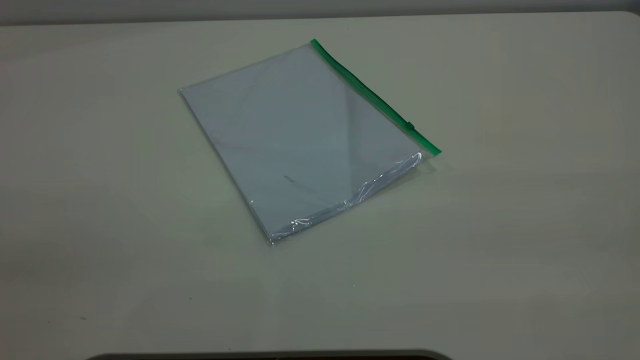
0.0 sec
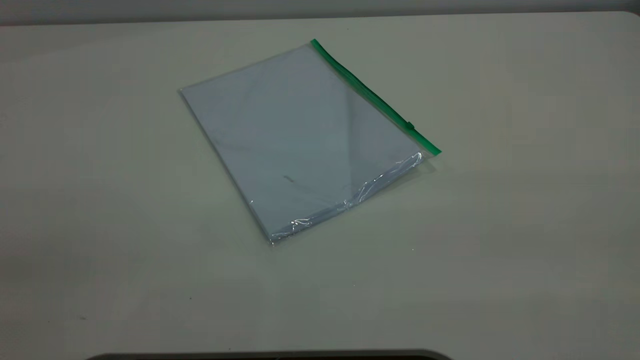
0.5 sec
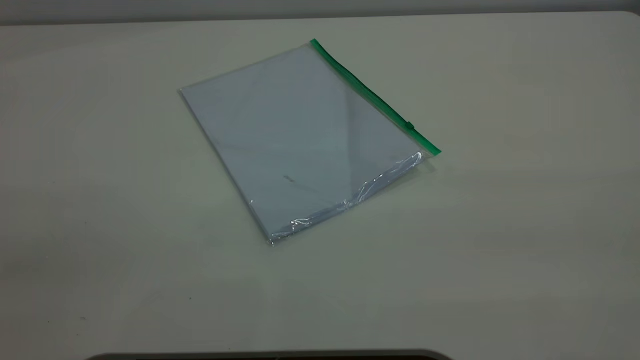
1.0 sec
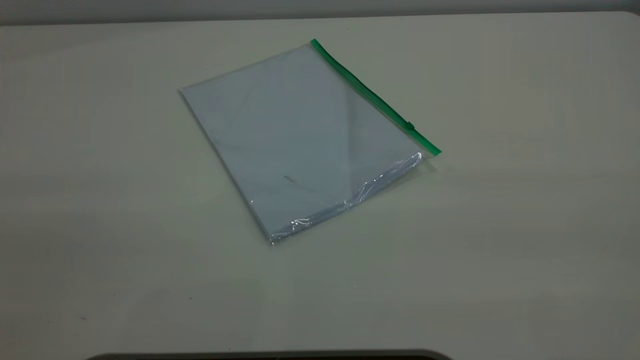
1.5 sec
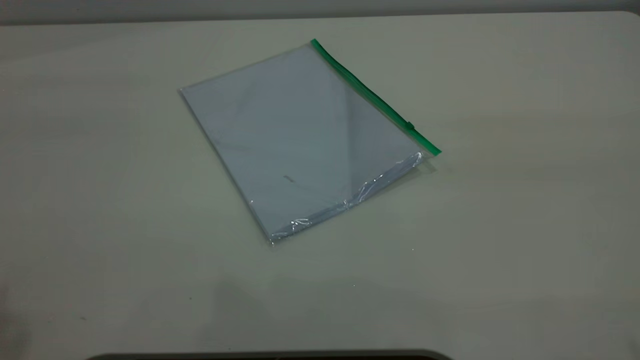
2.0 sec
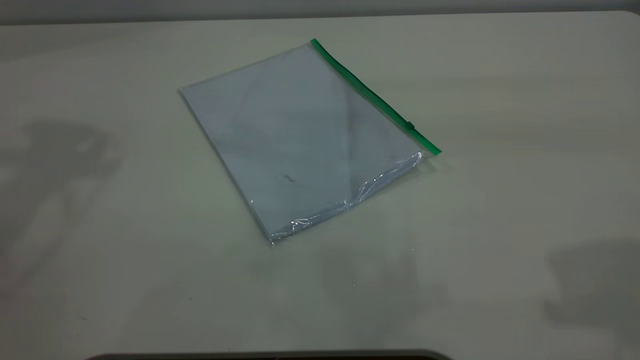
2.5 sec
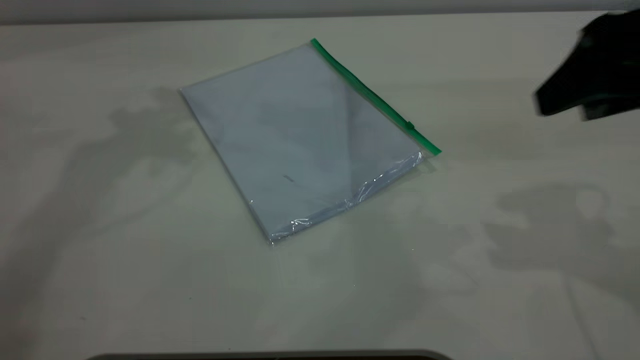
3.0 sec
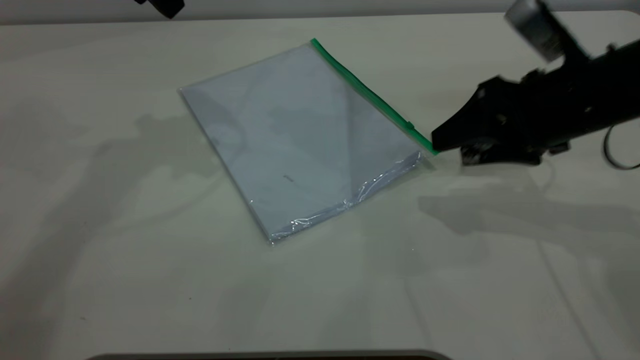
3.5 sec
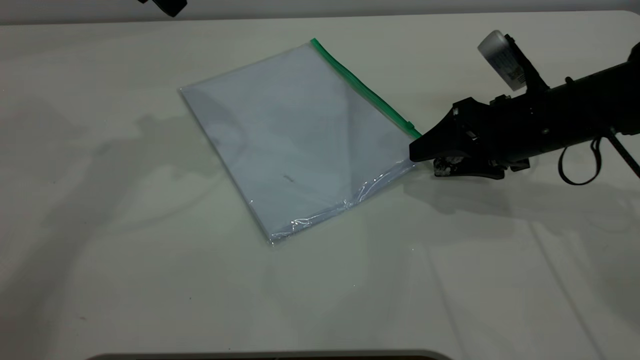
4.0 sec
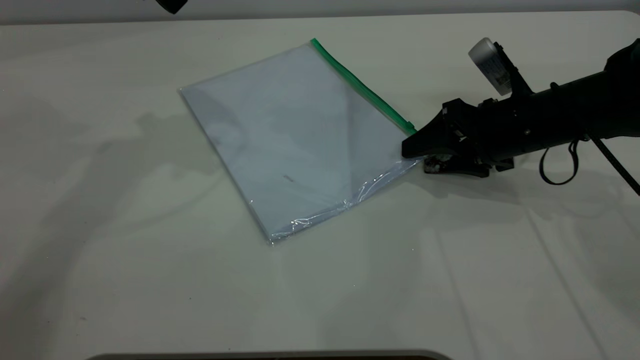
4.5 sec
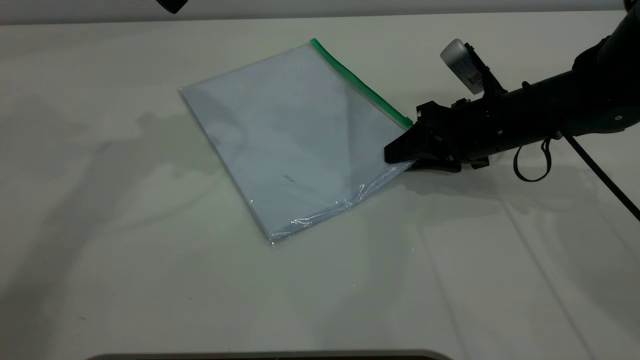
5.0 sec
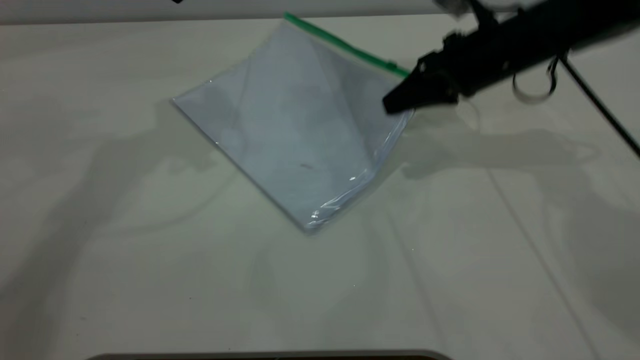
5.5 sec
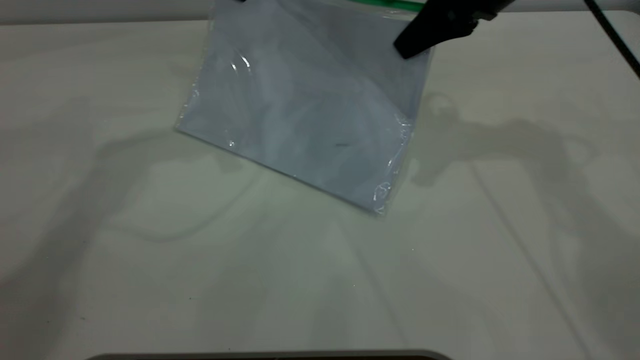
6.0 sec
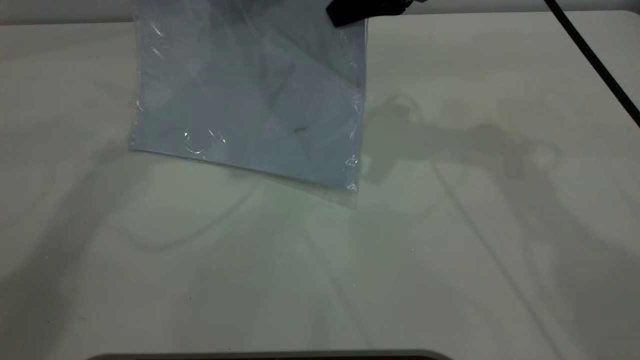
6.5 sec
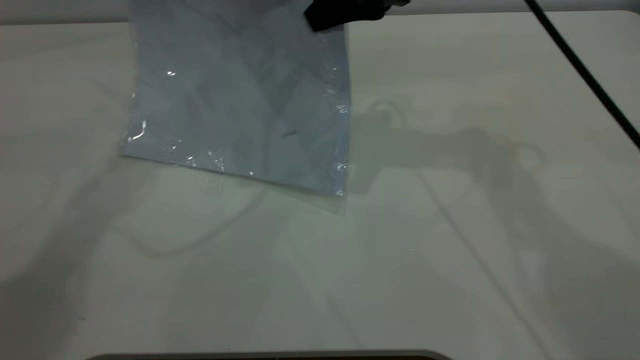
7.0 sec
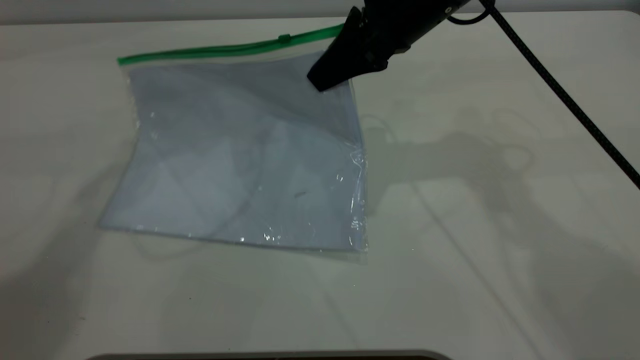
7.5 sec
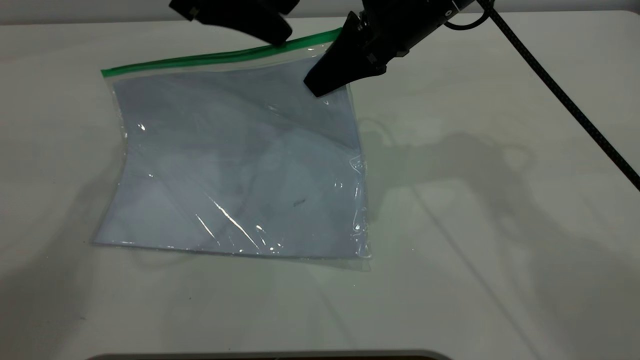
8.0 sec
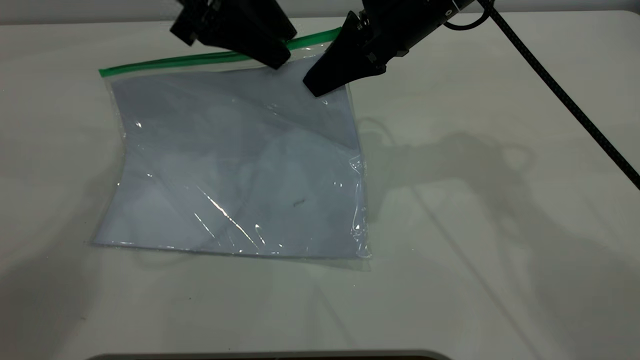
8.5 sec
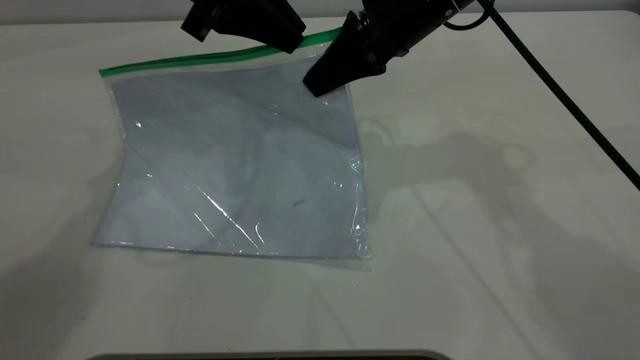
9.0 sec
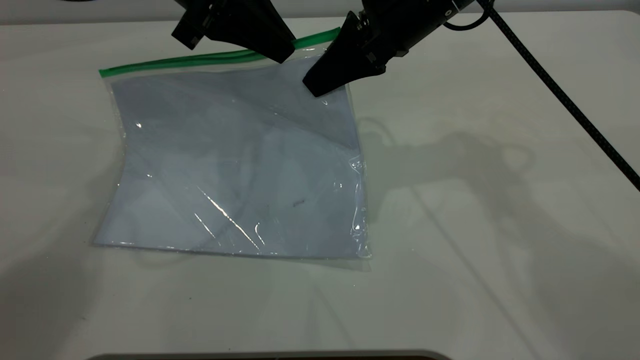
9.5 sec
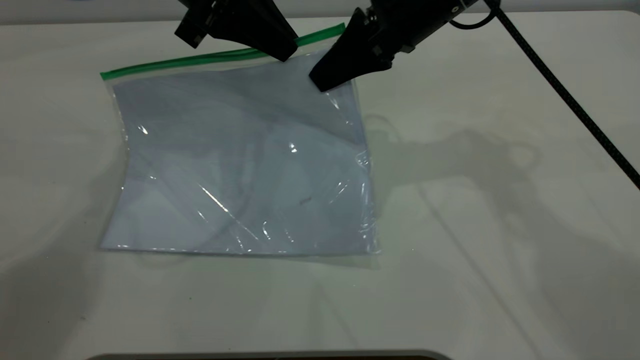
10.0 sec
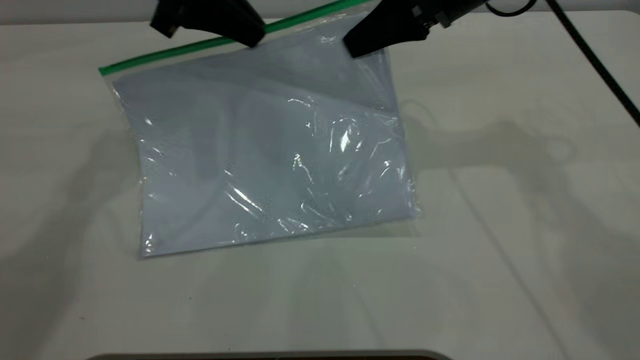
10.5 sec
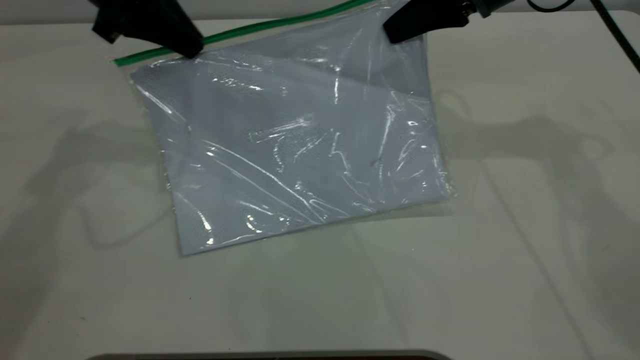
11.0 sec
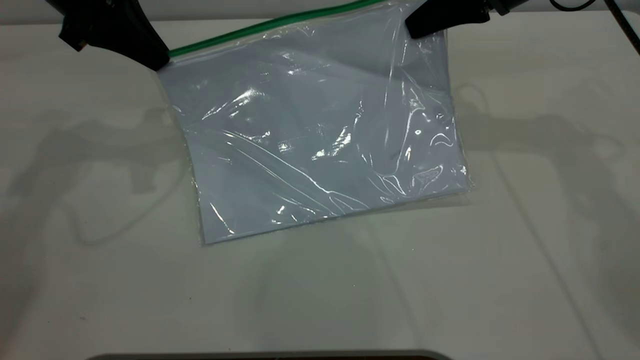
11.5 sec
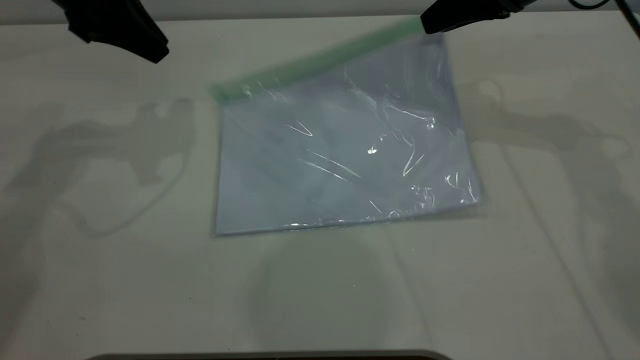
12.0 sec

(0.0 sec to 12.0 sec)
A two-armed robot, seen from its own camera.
Step, 0.0 sec - 7.0 sec: Pick up the transparent plastic bag with the right gripper.
Step, 7.5 sec - 11.5 sec: Pulling up the zipper on the transparent plastic bag with the left gripper to close it.
2.0 sec - 4.0 sec: The right gripper moves downward and forward, approximately 40 cm. The left gripper goes some 30 cm forward, downward and to the right.
4.0 sec - 6.0 sec: The right gripper travels upward and forward by about 15 cm, and closes up.
6.0 sec - 8.0 sec: The right gripper shifts about 5 cm to the left.
8.0 sec - 10.0 sec: The left gripper closes its fingers.
10.0 sec - 12.0 sec: The right gripper goes some 15 cm to the right and forward, and opens up, while the left gripper travels to the left by approximately 10 cm, and opens.

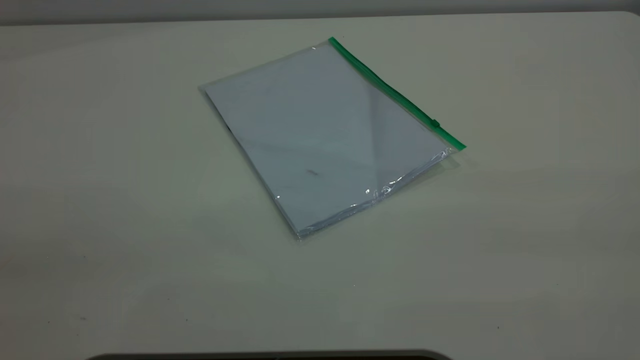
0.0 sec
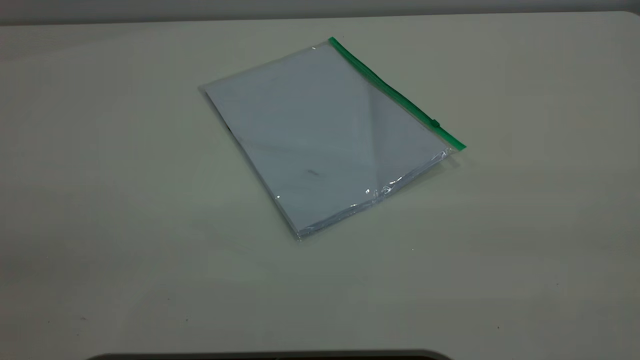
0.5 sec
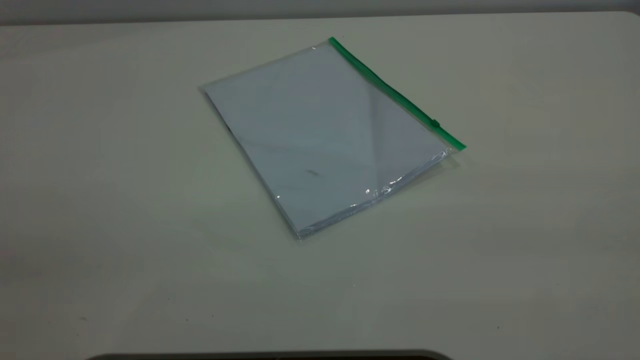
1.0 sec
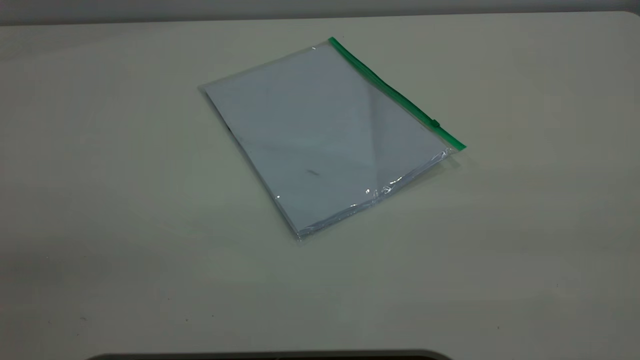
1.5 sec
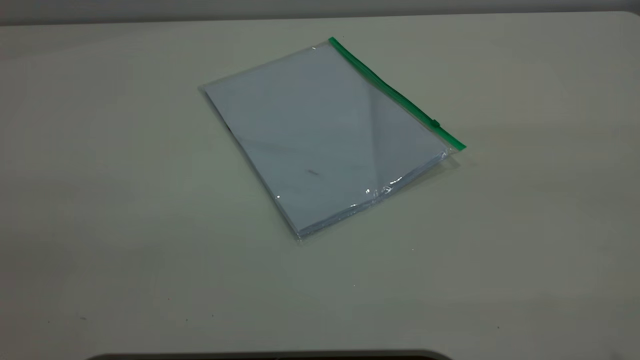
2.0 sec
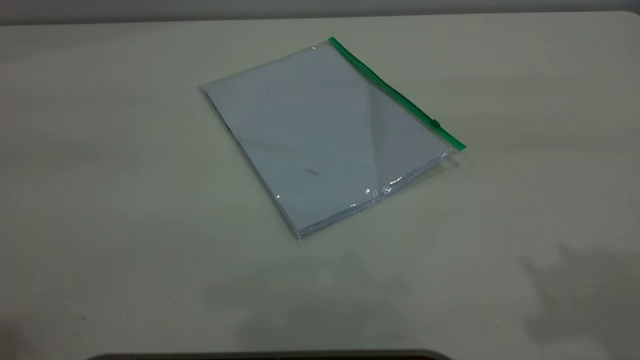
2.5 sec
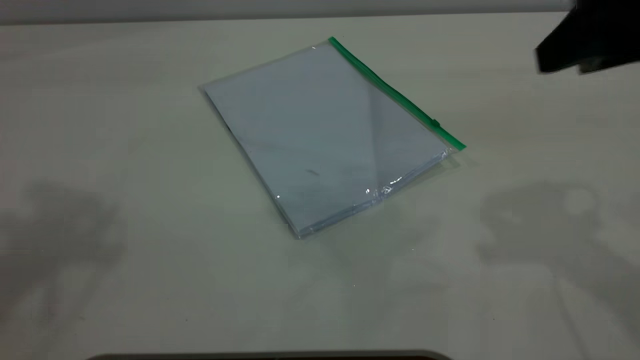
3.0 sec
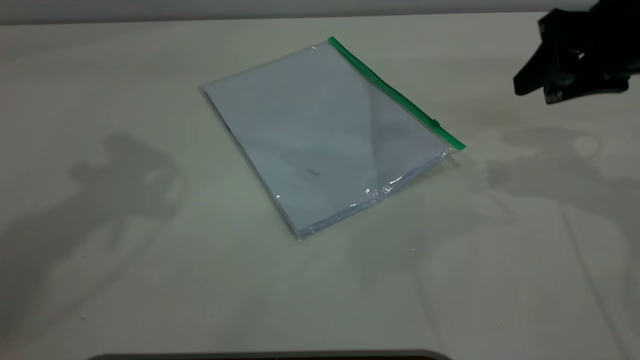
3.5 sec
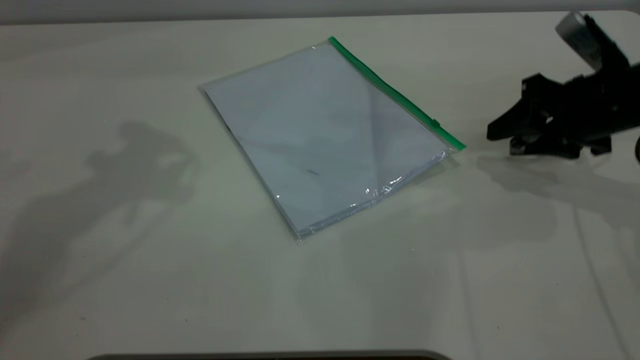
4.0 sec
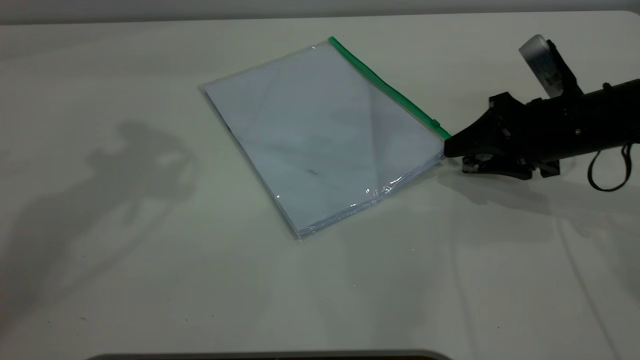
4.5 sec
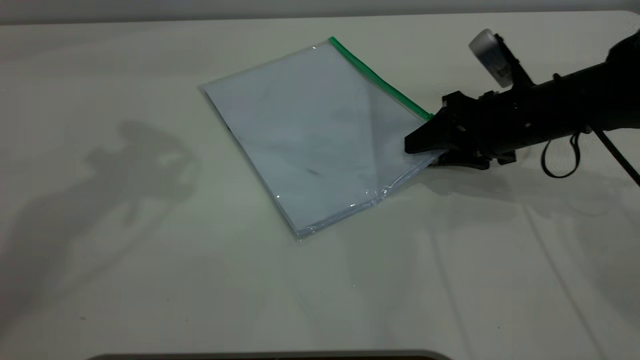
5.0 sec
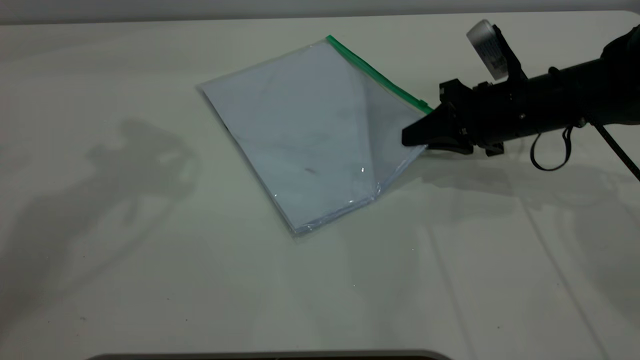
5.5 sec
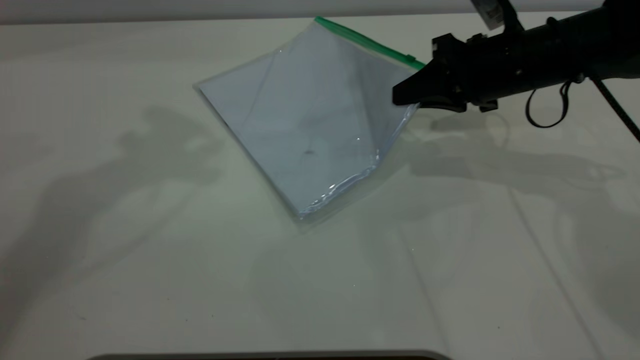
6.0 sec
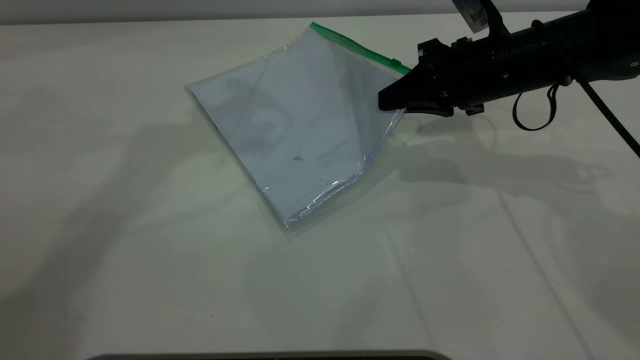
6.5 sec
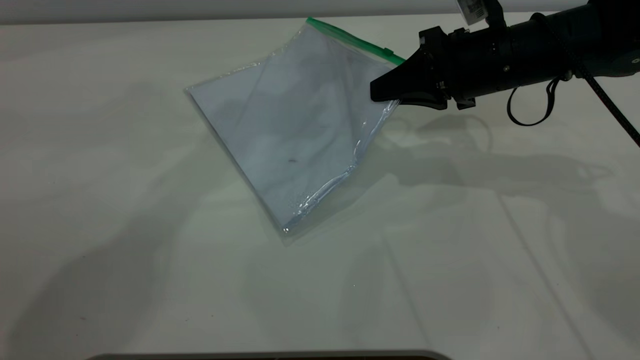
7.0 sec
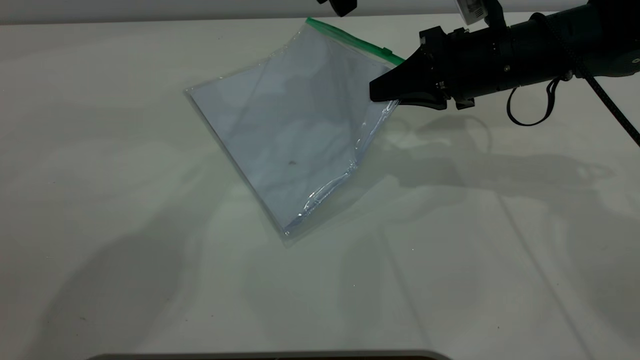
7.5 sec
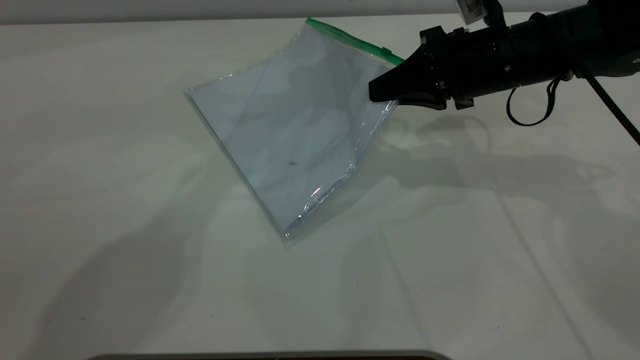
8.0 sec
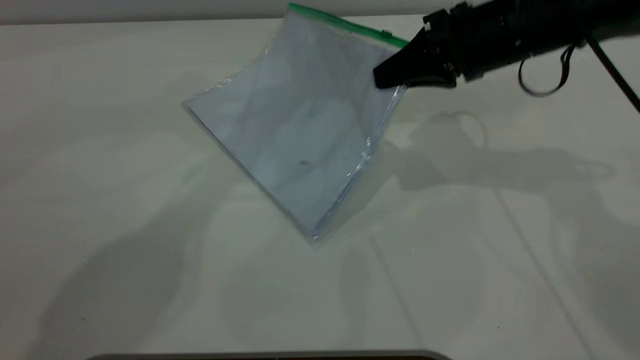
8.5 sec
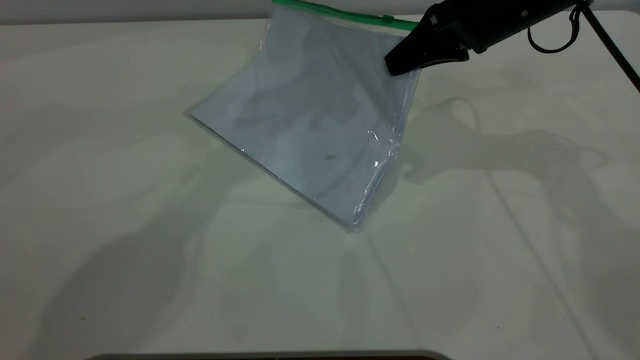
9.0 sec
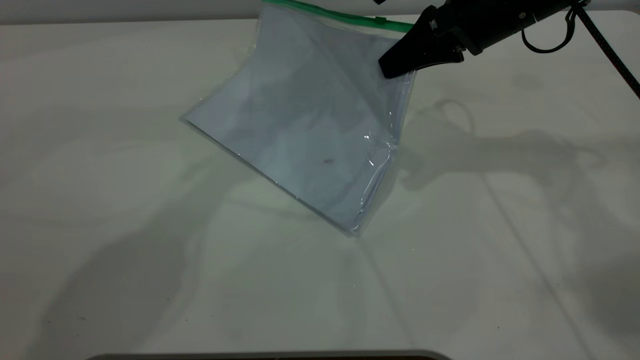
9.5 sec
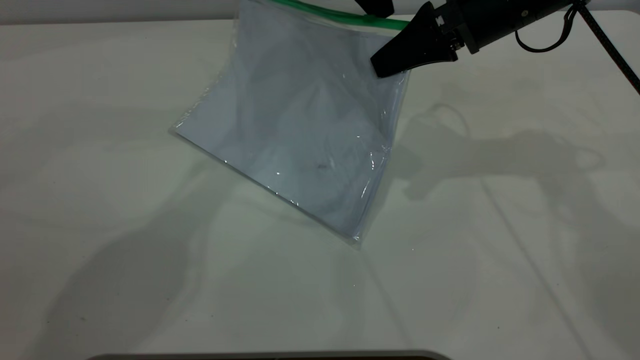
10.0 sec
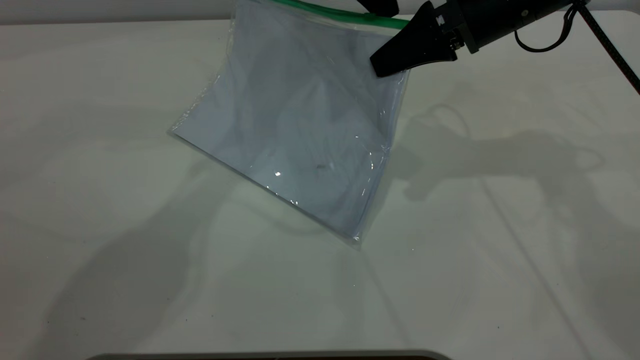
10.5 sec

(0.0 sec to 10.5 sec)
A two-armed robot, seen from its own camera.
Step, 0.0 sec - 8.5 sec: Pick up the transparent plastic bag with the right gripper.
2.0 sec - 4.0 sec: The right gripper heads downward and forward, covering approximately 40 cm.
4.0 sec - 6.5 sec: The left gripper shifts roughly 15 cm to the right and forward; the right gripper moves to the left, about 10 cm, and closes.
6.5 sec - 8.5 sec: The left gripper moves to the right and downward, approximately 15 cm.
